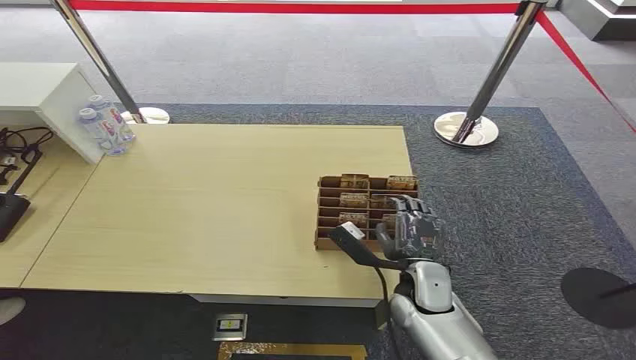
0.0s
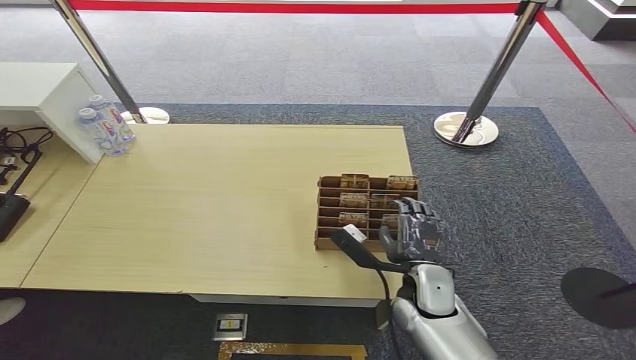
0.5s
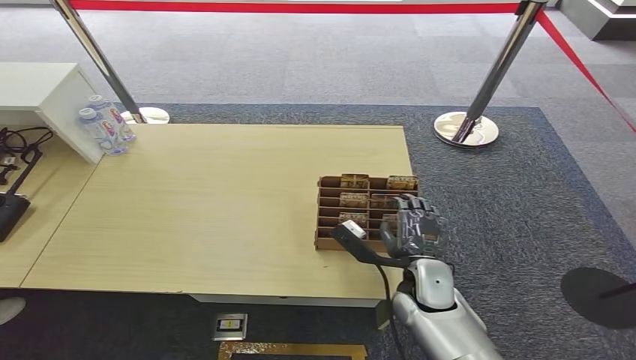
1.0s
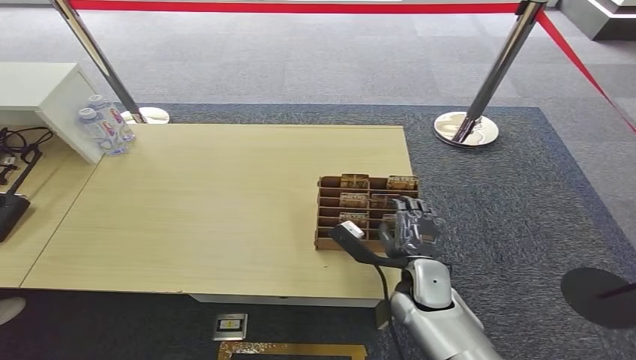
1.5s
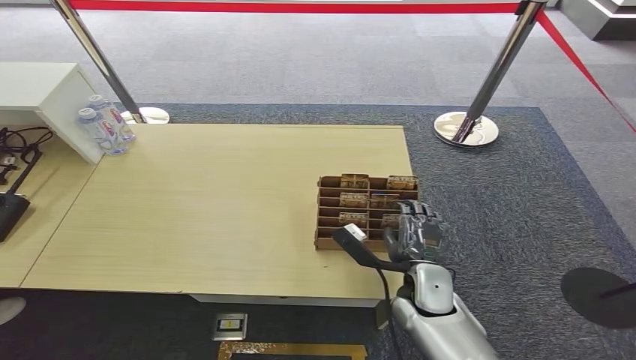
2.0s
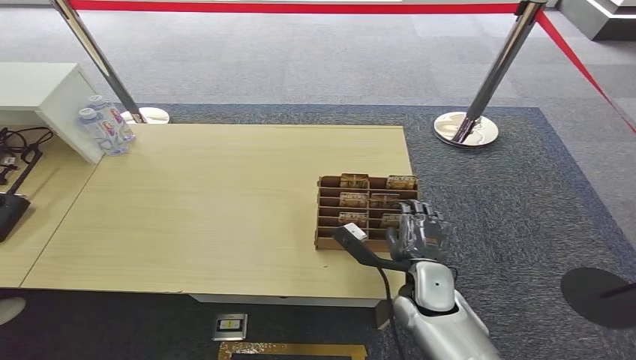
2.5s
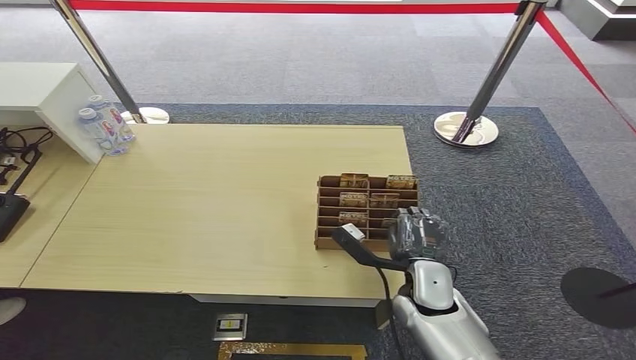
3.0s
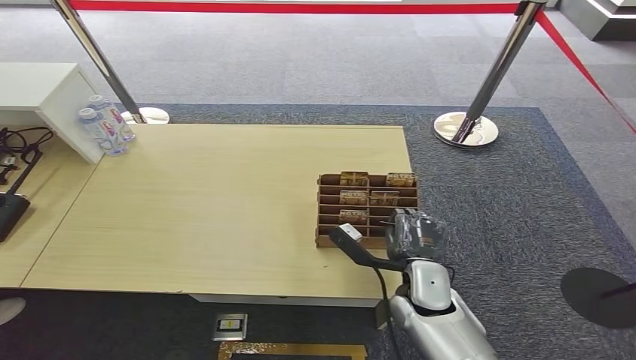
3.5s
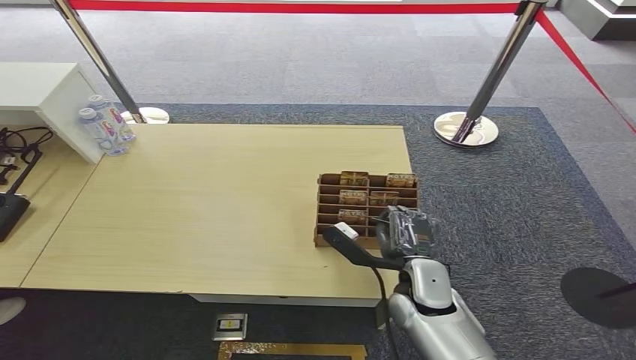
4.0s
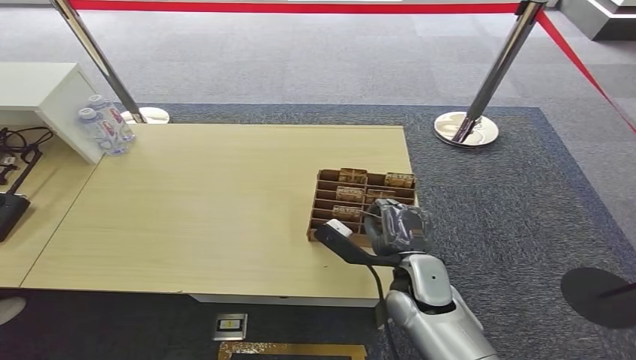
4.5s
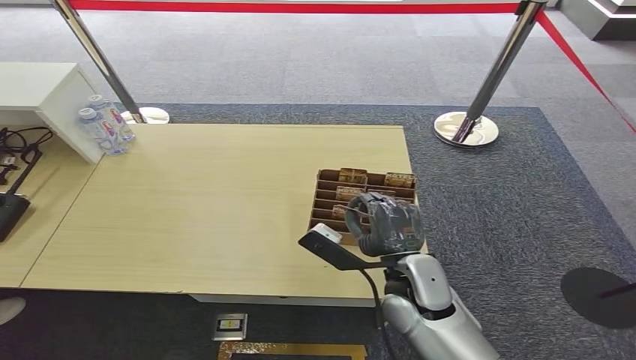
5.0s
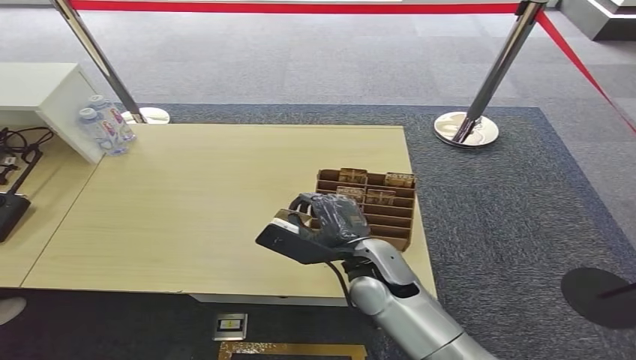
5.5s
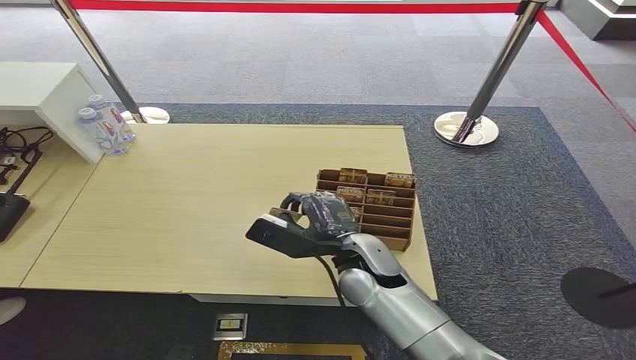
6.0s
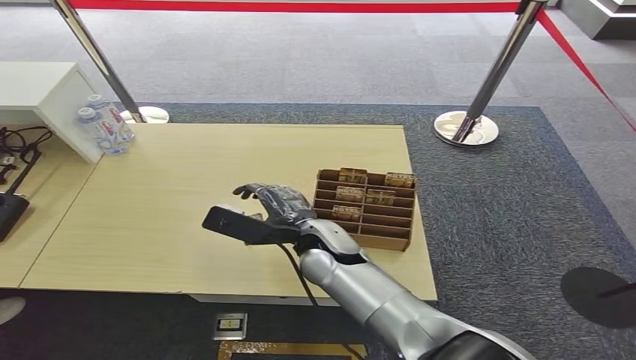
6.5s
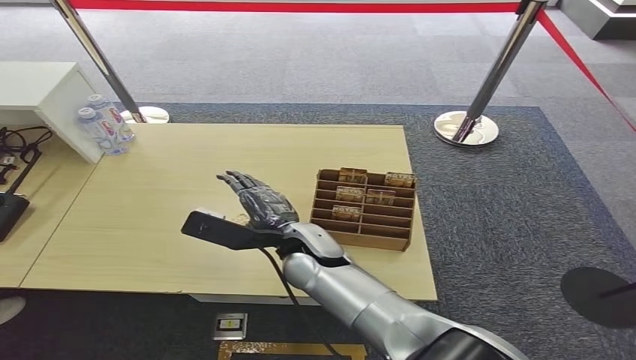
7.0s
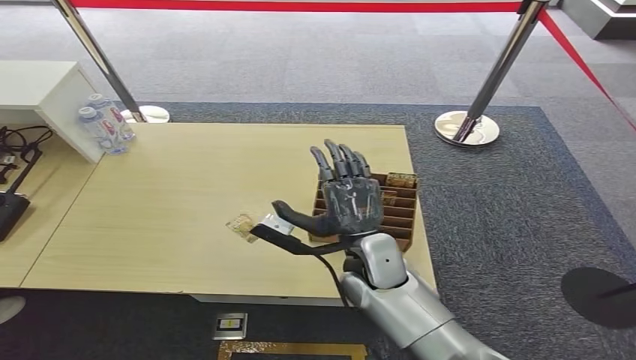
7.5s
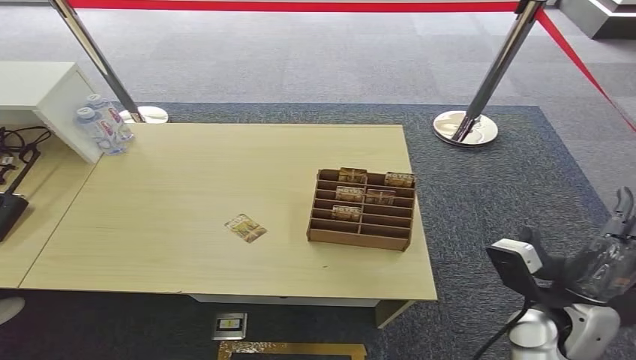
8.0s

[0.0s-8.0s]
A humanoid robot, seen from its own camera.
Step, 0.0s to 5.0s: Pick up the key card from the card box.
Step, 5.5s to 8.0s: Hand the key card to the target.
2.0s to 4.0s: The hands make only small movements.
4.0s to 6.0s: The right hand is displaced to the left and upward by roughly 10 cm.
6.0s to 8.0s: The right hand heads to the right and backward, covering about 25 cm.

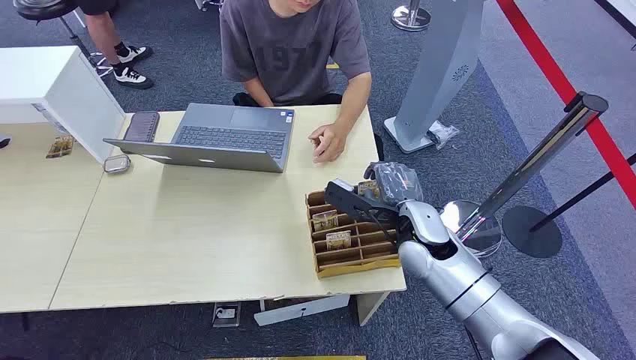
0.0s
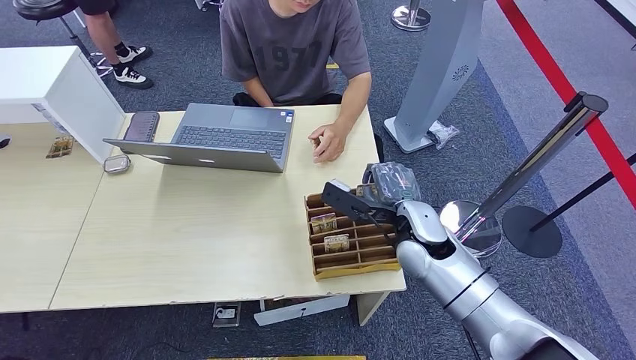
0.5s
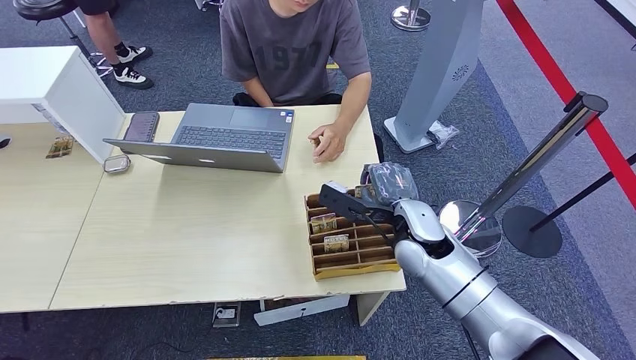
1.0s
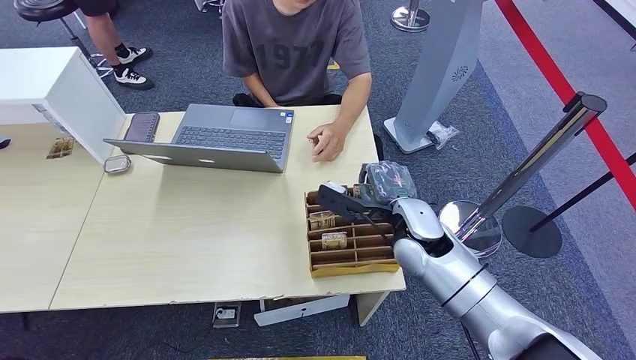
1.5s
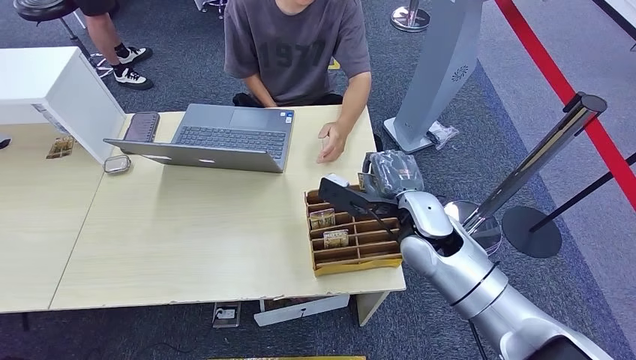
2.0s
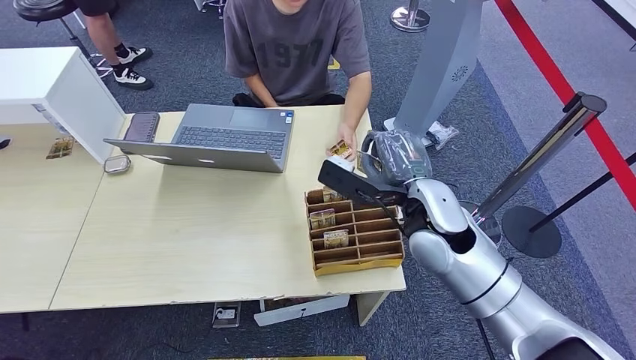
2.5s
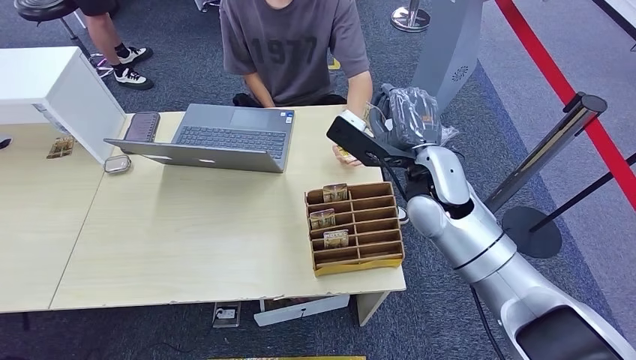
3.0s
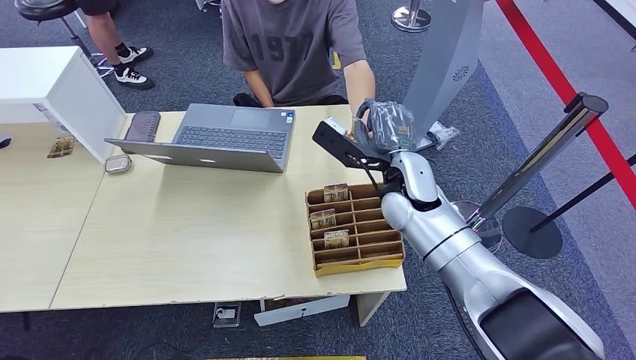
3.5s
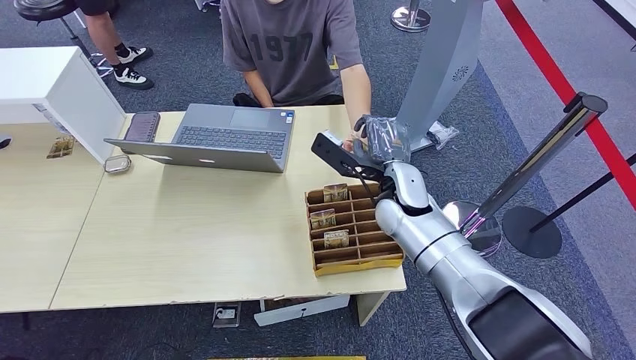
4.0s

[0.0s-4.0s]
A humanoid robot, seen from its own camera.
Step, 0.0s to 2.0s: Pick up the key card from the card box.
2.0s to 4.0s: The right hand travels forward by about 5 cm.
